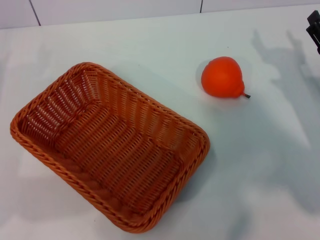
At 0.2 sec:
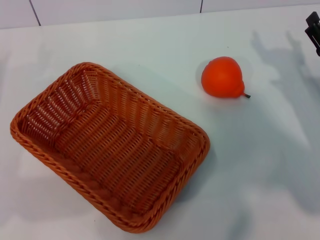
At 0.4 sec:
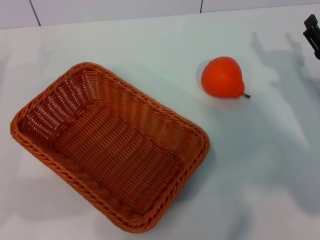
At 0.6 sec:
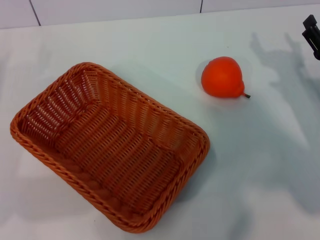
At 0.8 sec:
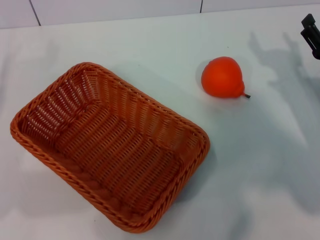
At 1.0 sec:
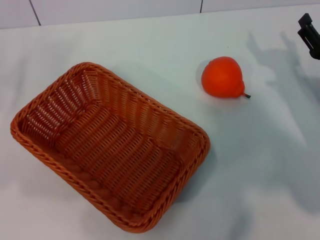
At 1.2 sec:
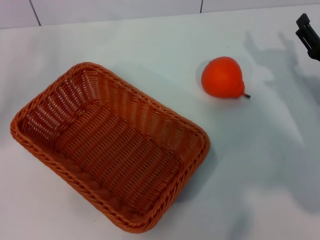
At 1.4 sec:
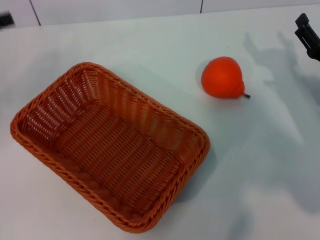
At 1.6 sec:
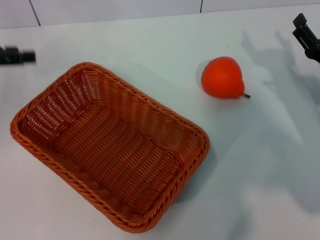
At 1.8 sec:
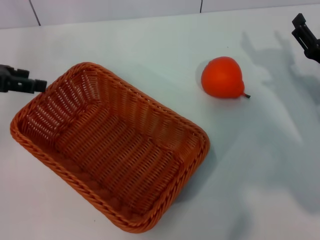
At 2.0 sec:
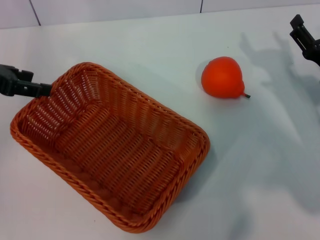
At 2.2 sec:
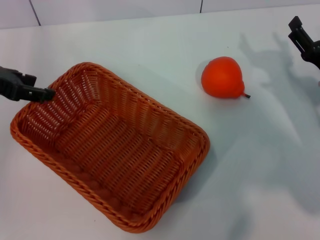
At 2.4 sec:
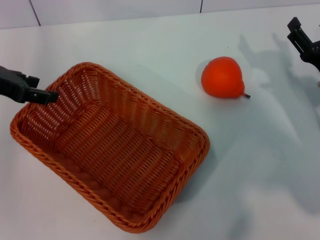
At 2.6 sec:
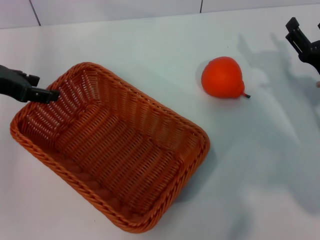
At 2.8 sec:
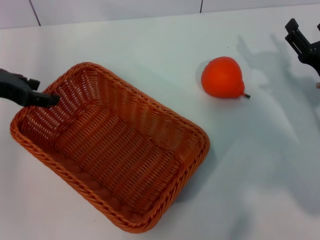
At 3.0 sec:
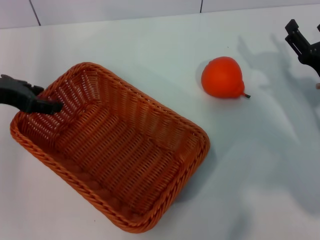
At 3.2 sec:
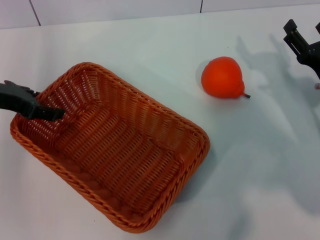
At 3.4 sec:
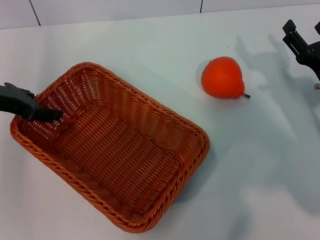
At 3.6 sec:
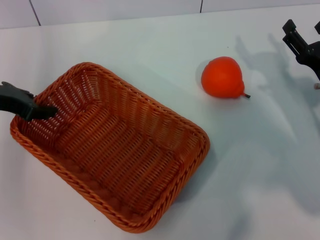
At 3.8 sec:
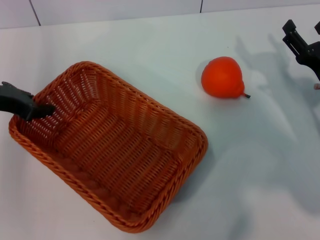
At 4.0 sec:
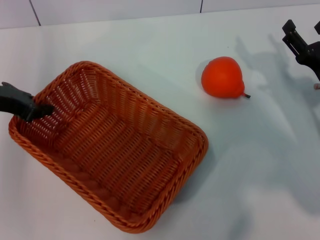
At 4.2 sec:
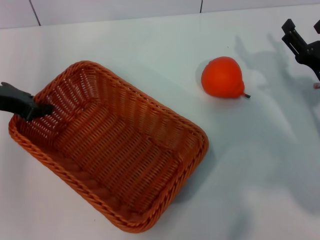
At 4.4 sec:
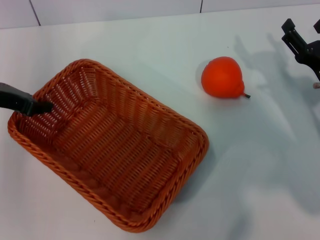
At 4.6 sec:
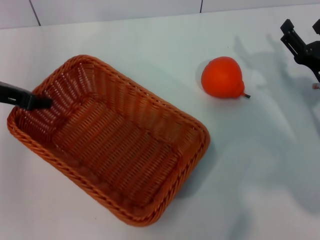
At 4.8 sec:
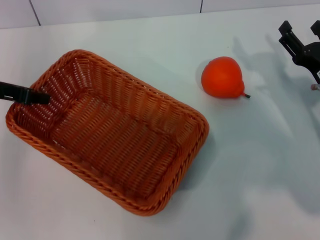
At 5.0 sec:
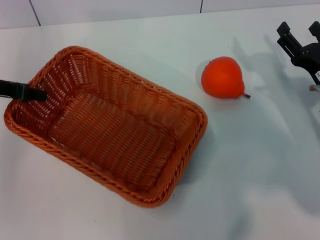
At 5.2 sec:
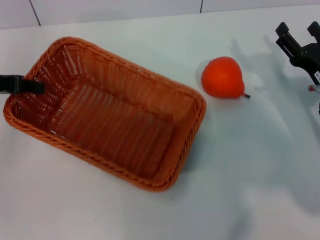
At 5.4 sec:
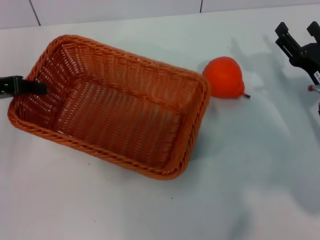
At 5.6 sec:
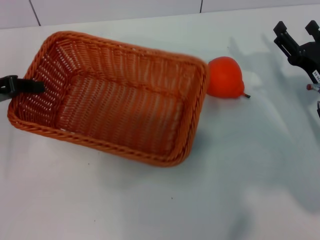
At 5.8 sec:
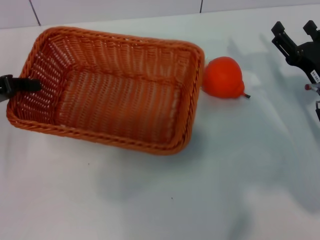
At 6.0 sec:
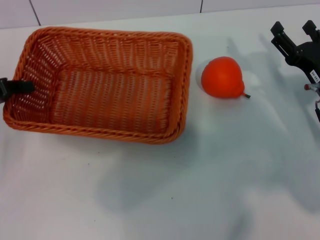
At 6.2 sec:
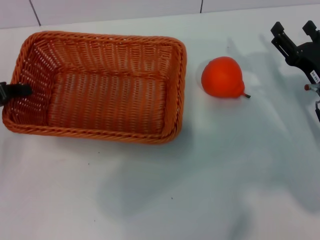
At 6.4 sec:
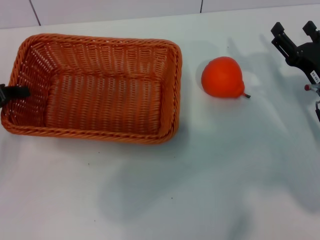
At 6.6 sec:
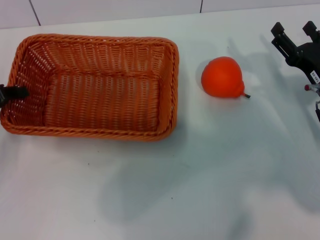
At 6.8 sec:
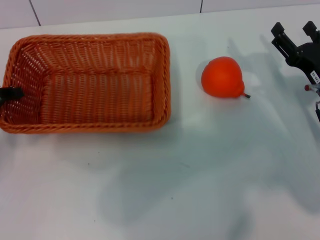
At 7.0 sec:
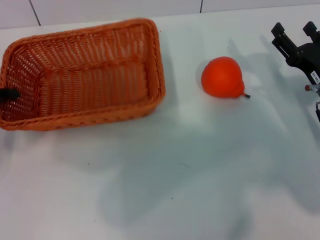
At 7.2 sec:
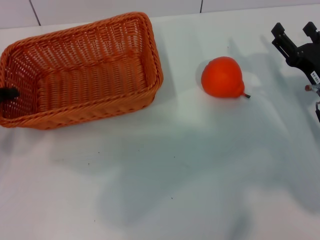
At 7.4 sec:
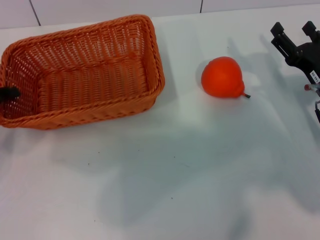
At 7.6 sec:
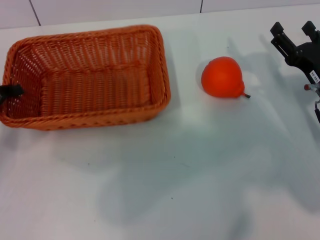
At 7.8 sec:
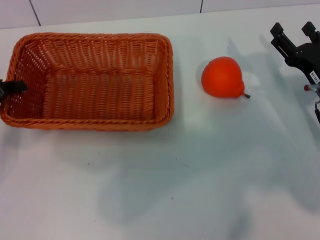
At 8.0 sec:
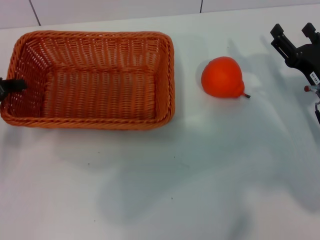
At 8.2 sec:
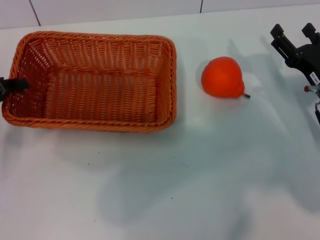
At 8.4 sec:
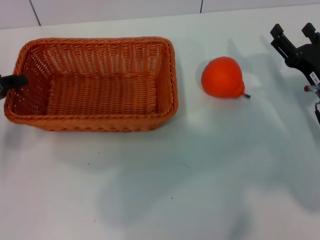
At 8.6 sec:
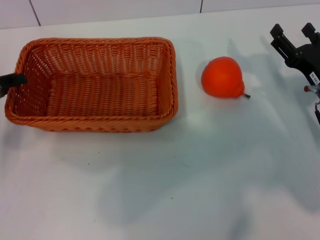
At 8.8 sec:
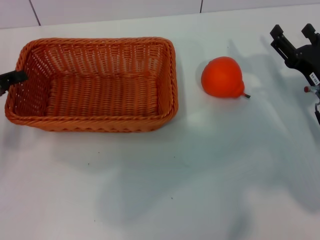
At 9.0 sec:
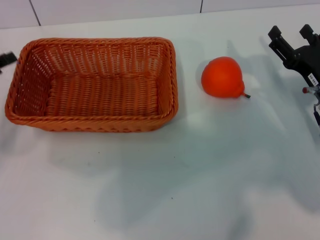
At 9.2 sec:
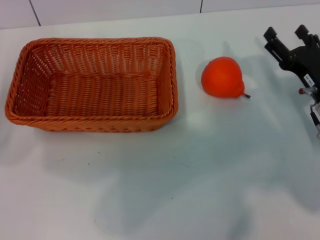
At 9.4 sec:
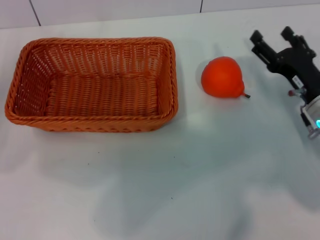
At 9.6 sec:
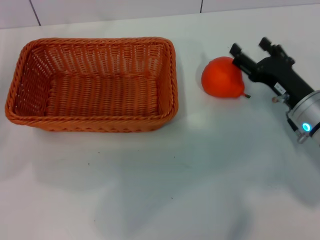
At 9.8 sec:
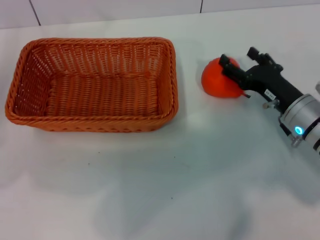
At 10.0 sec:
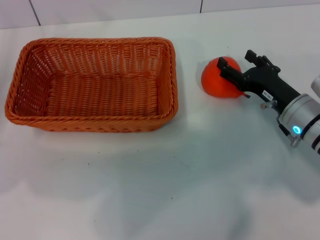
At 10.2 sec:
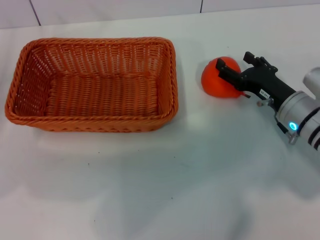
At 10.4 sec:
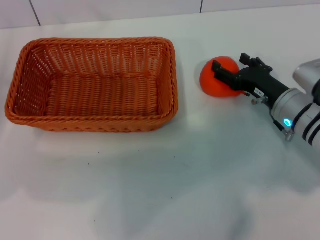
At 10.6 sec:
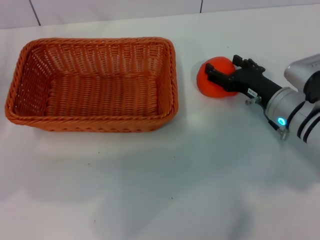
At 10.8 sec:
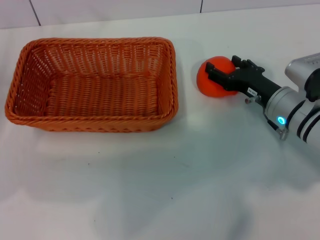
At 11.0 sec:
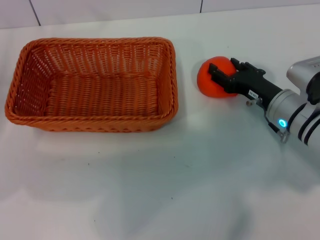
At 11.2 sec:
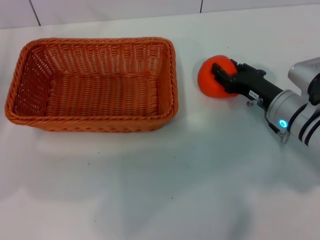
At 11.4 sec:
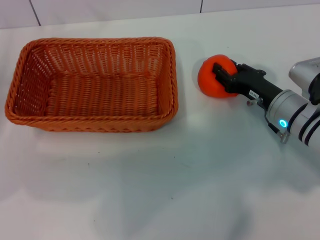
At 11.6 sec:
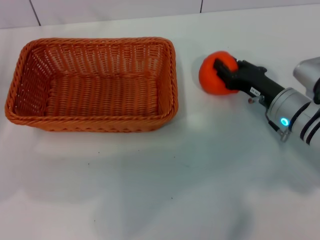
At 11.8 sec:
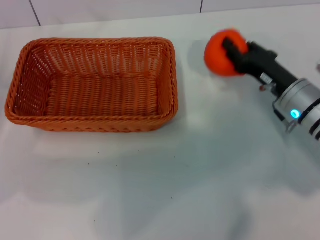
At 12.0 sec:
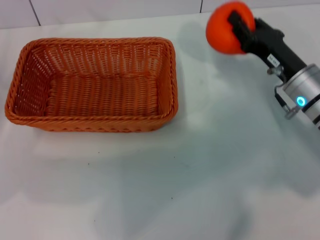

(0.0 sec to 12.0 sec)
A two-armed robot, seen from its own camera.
Task of the whole recording: the left gripper pick up the yellow basket and place it horizontally in the middle of the table, the right gripper pick up the orange and place it into the yellow basket.
Step, 0.0 sec - 5.4 sec: Pick up the light basket with the left gripper.
Step, 5.8 sec - 9.2 sec: Place the light basket in the center of view with the left gripper.
0.0 sec - 1.6 sec: The left gripper heads upward and forward, covering approximately 15 cm.
1.6 sec - 3.0 sec: The left gripper travels to the right by approximately 5 cm.
3.0 sec - 4.4 sec: The left gripper closes its fingers.
4.4 sec - 6.0 sec: The left gripper changes place by some 5 cm.
6.0 sec - 7.6 sec: The grippers stay close to where they were, moving slightly.
7.6 sec - 9.0 sec: The left gripper opens.
9.0 sec - 10.4 sec: The left gripper opens up, while the right gripper shifts by approximately 5 cm.
10.4 sec - 12.0 sec: The right gripper closes.

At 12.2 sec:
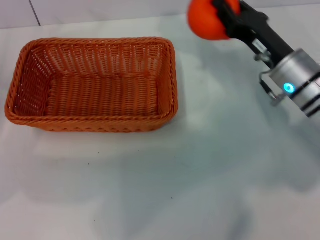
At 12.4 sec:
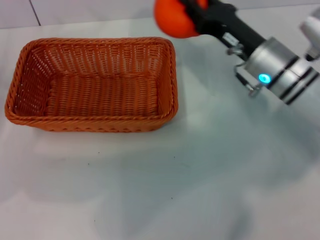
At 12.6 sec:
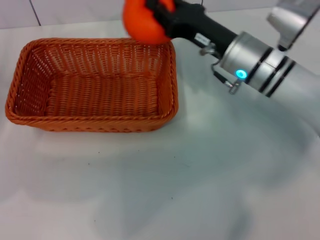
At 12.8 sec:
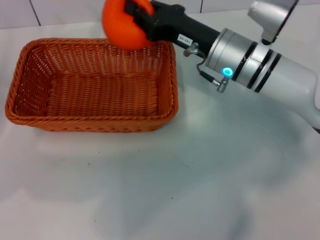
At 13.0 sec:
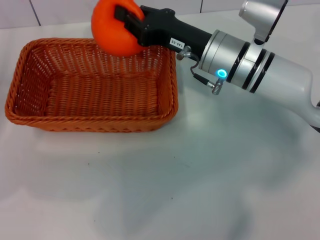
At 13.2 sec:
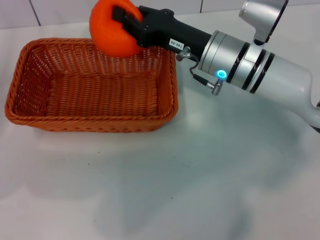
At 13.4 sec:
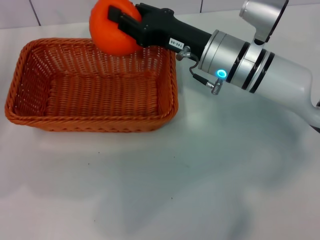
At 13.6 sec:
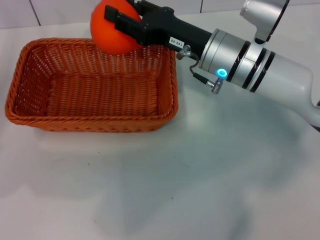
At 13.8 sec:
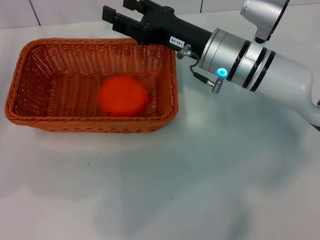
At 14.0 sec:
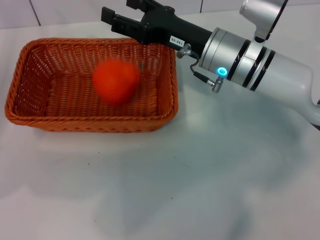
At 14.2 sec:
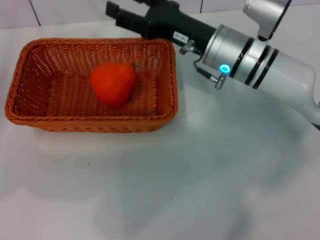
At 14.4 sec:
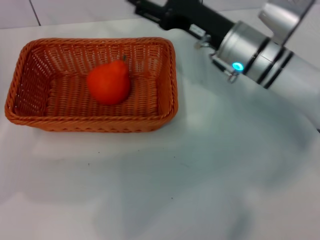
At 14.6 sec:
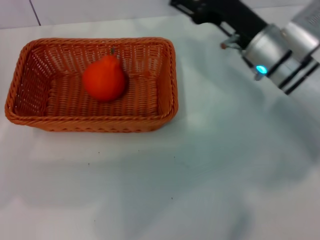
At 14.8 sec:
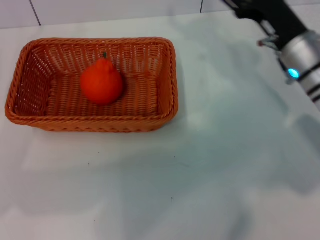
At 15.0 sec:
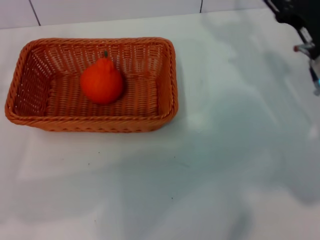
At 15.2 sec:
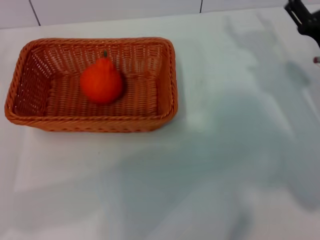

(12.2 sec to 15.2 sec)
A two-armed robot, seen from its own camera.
Task of the whole recording: the left gripper pick up the yellow basket and place it horizontally in the middle of the table, the right gripper pick up the orange and place it into the yellow basket.
Step, 12.2 sec - 14.2 sec: Place the orange into the light basket with the right gripper.
12.2 sec - 13.8 sec: The right gripper goes approximately 10 cm to the left, and opens its fingers.
13.8 sec - 15.2 sec: The right gripper moves to the right, some 15 cm. The left gripper ends up about 5 cm from where it was.
